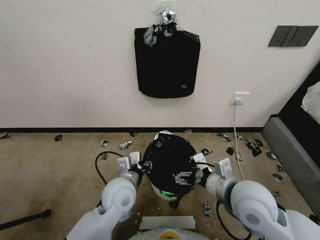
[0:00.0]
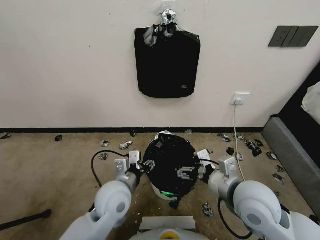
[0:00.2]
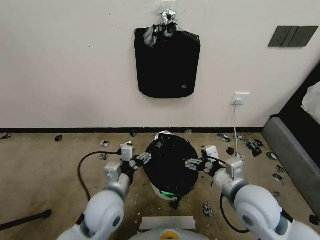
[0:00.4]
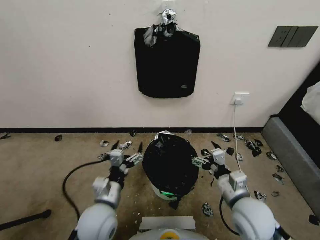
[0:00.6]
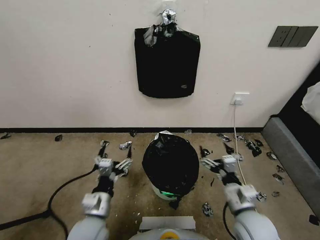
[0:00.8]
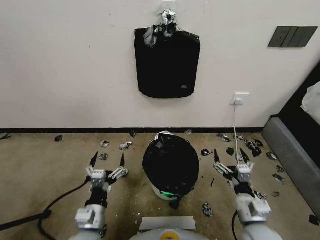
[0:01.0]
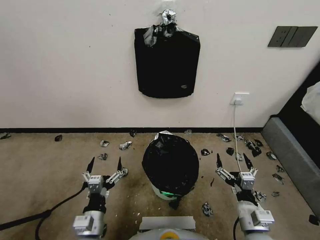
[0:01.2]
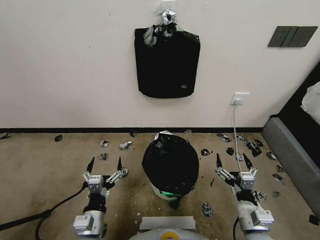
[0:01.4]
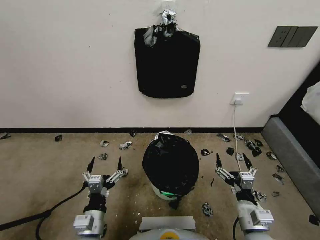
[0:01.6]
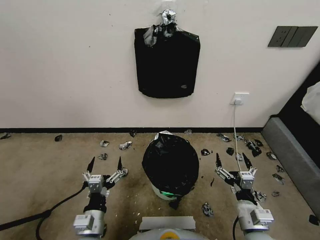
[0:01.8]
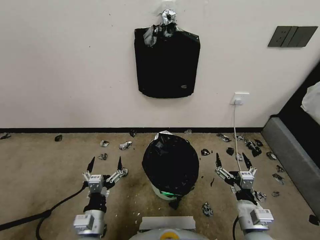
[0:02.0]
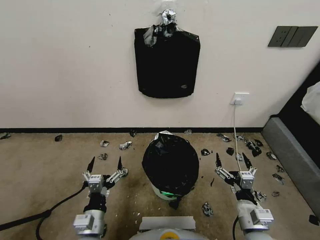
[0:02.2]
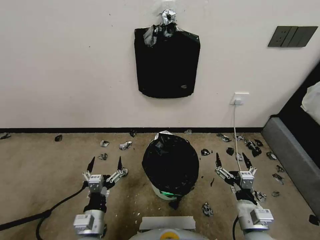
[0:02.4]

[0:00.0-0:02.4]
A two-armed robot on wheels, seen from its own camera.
Task of the whole recording: Place a trash bag onto the trash bin.
0:00.0 to 0:01.2: The left gripper is displaced backward, to the left and downward by some 20 cm, and opens up. Meanwhile the right gripper is displaced downward and backward by about 15 cm.
0:01.2 to 0:02.4: Both grippers stay about where they are.
